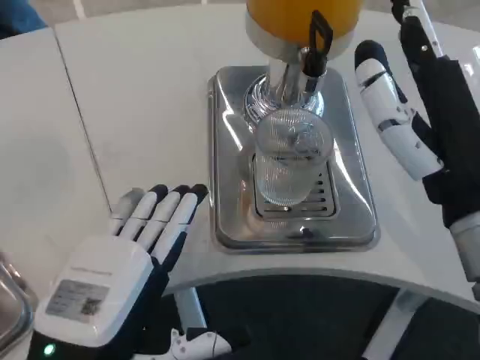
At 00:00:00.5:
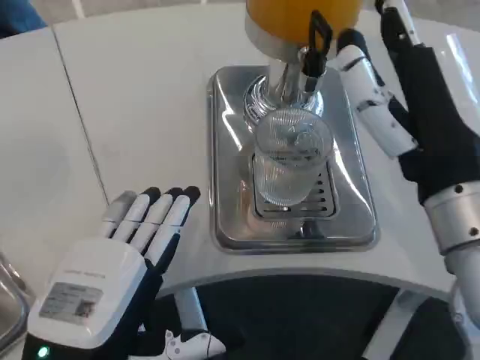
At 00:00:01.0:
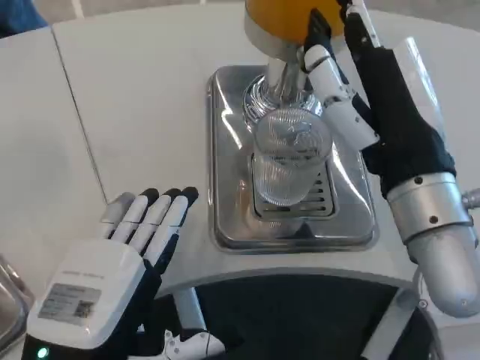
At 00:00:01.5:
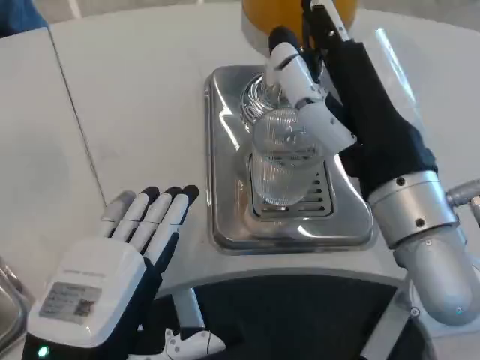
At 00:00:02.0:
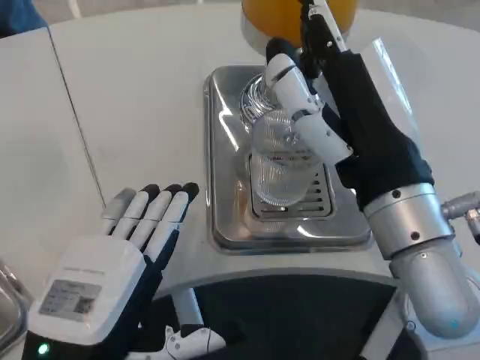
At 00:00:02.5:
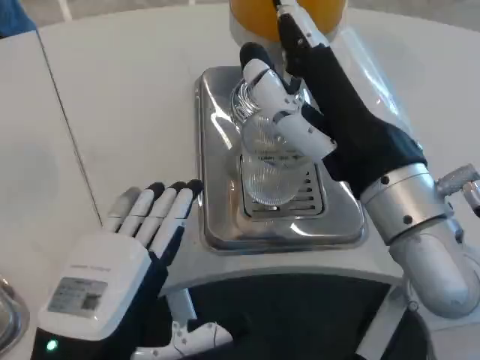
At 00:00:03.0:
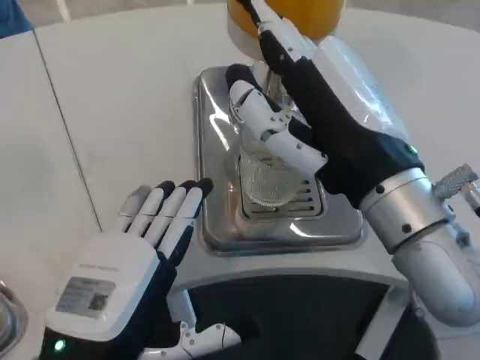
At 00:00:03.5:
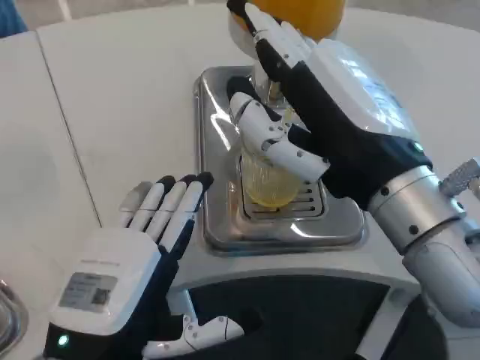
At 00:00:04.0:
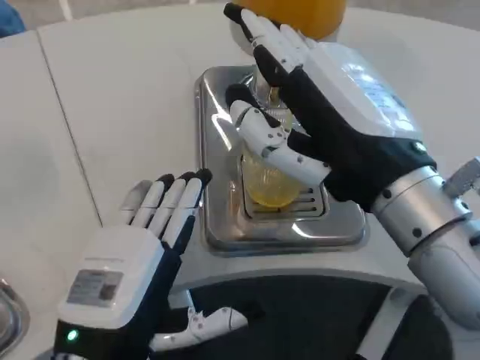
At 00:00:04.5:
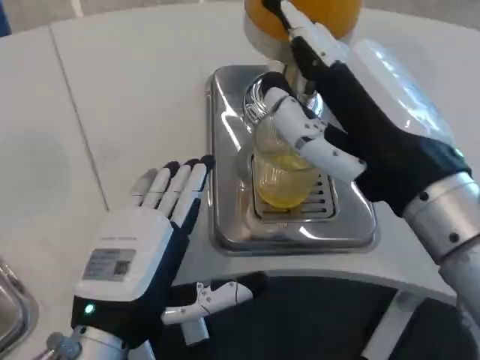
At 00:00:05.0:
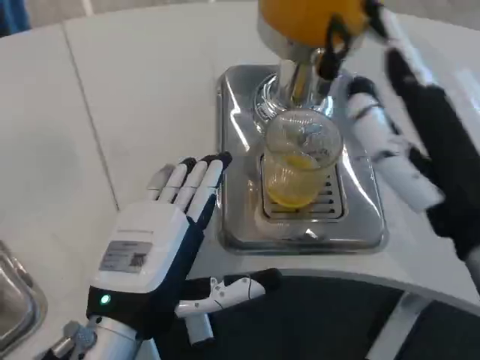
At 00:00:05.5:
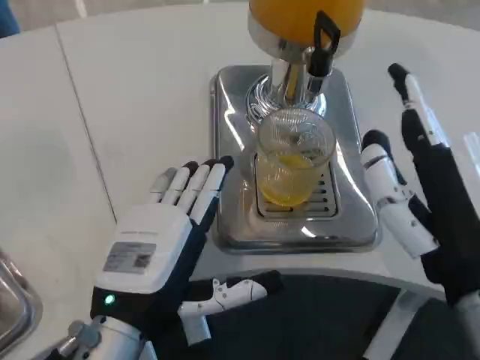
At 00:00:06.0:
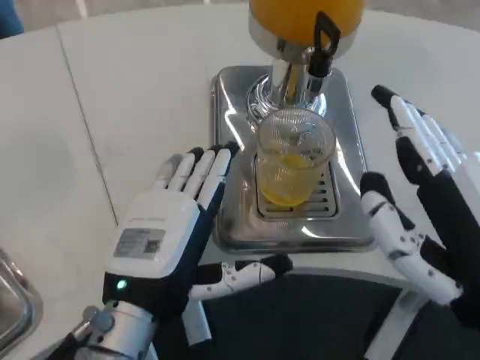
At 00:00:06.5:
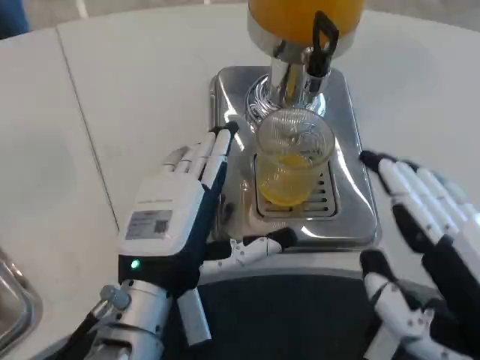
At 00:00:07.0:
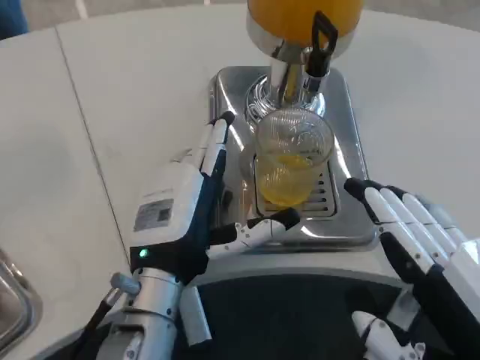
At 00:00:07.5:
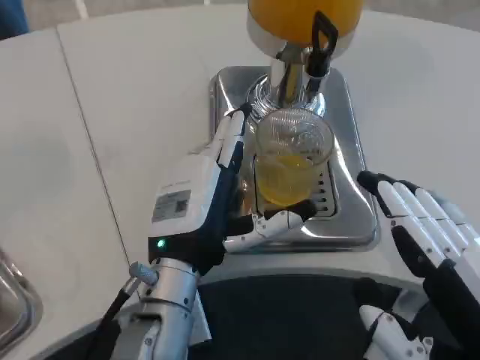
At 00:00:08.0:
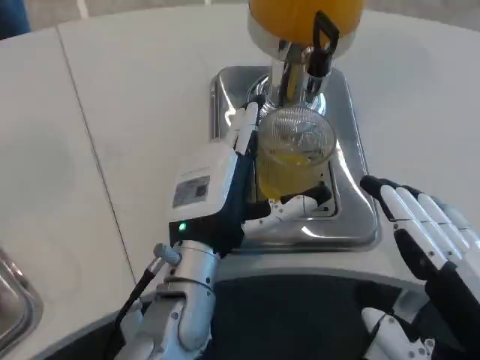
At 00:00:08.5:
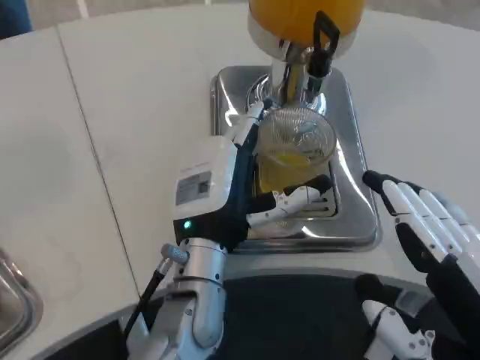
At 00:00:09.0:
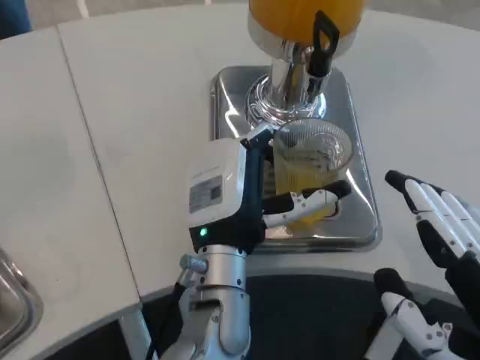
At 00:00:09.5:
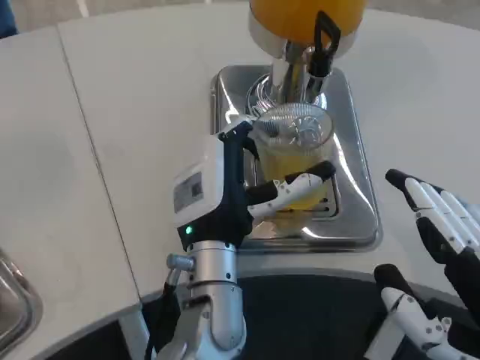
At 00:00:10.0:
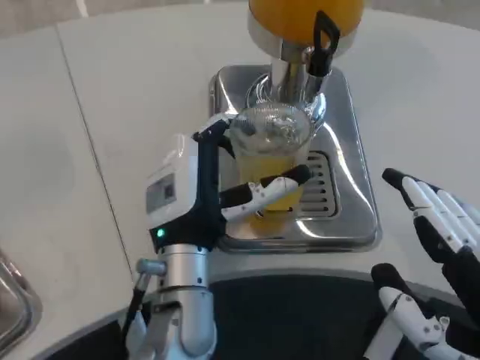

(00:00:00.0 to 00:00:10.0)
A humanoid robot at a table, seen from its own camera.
Task of the whole recording: Grasp the cup under the faucet to collect the drink, then remove the cup.
00:00:00.0 - 00:00:02.0: The right hand ends up some 5 cm from where it was.
00:00:04.0 - 00:00:06.0: The right hand is displaced backward, downward and to the right by approximately 10 cm, while the left hand heads forward, covering about 5 cm.
00:00:06.0 - 00:00:08.0: The left hand shifts roughly 10 cm forward and to the right.
00:00:08.0 - 00:00:10.0: There are only small adjustments of the hands.

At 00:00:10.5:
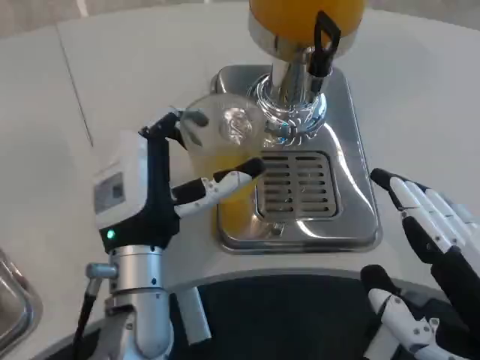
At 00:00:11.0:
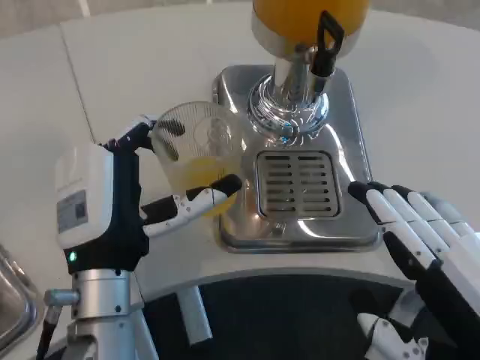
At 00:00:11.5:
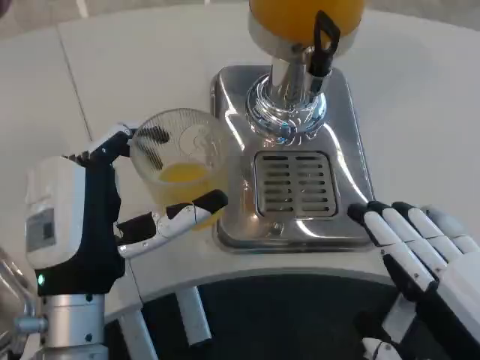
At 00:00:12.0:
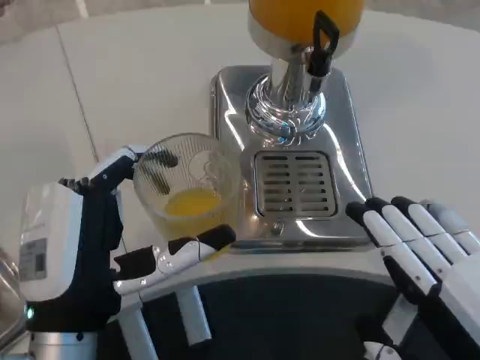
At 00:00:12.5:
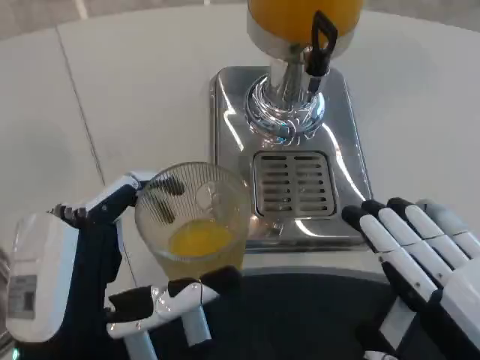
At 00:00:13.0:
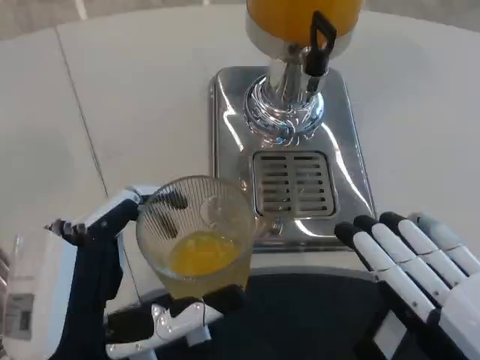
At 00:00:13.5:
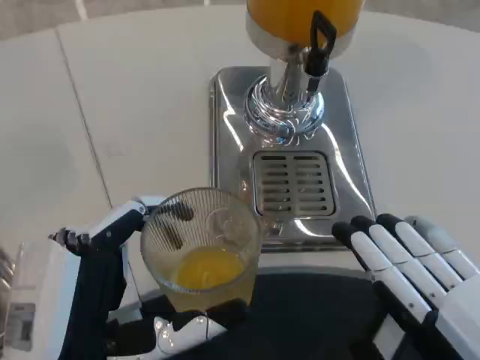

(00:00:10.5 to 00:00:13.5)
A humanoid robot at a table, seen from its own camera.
Task of the whole recording: Grasp the cup under the faucet to collect the drink, then remove the cup.
00:00:10.5 - 00:00:12.0: The left hand shifts approximately 10 cm backward.
00:00:12.0 - 00:00:13.5: The left hand travels backward by about 5 cm.

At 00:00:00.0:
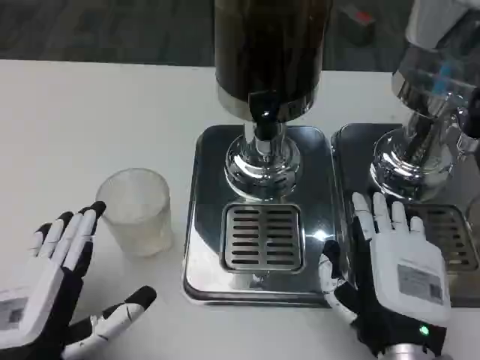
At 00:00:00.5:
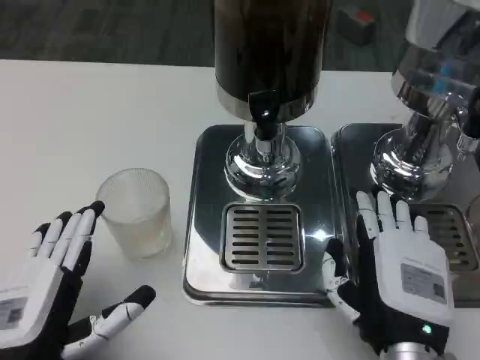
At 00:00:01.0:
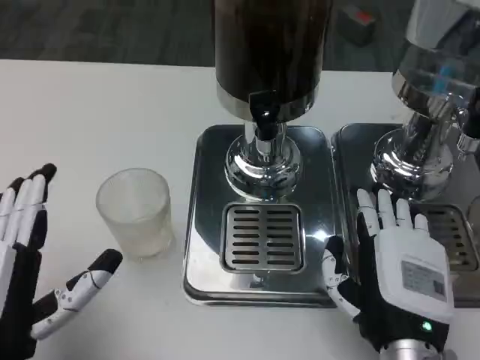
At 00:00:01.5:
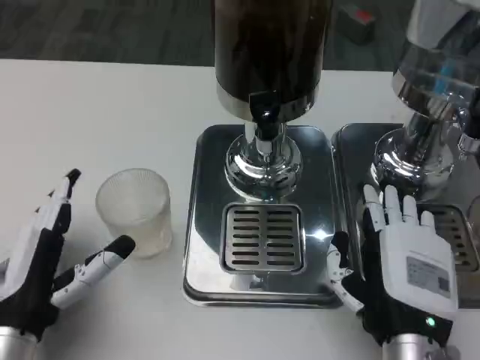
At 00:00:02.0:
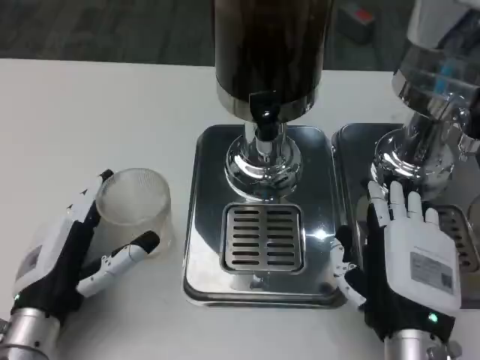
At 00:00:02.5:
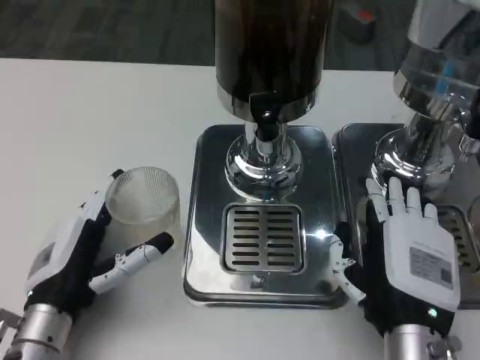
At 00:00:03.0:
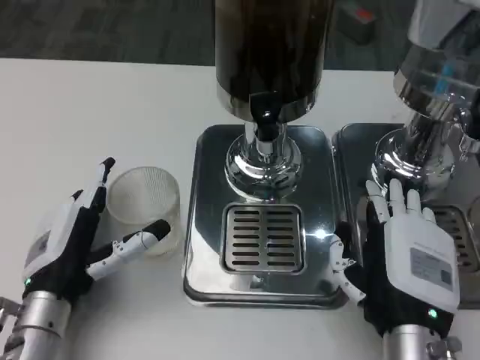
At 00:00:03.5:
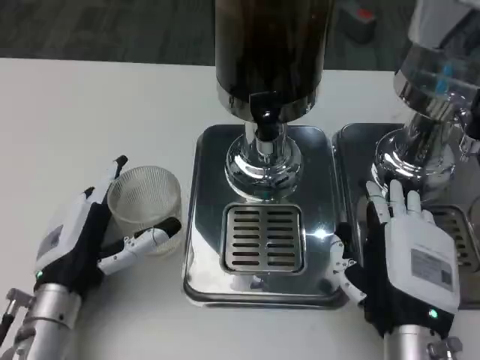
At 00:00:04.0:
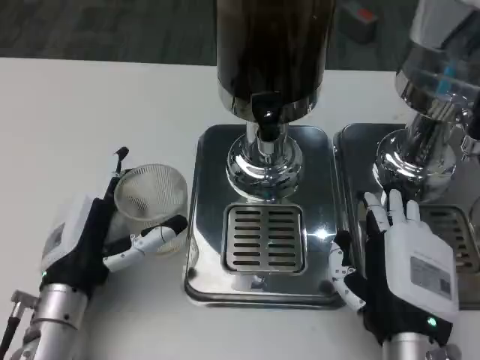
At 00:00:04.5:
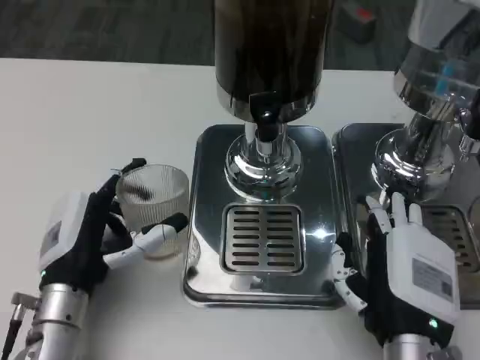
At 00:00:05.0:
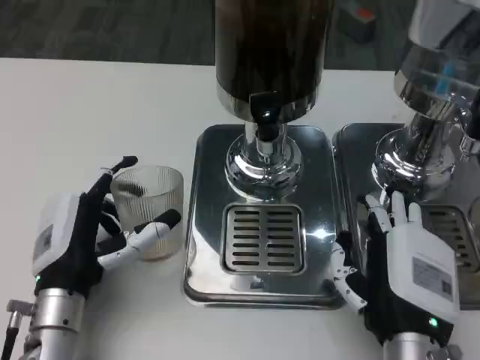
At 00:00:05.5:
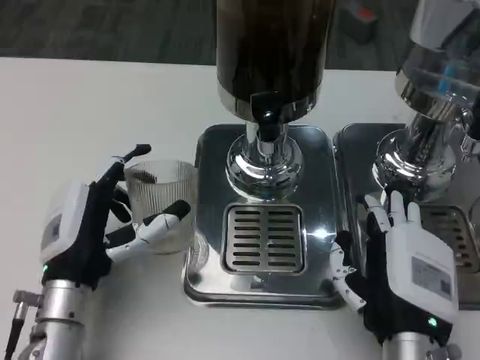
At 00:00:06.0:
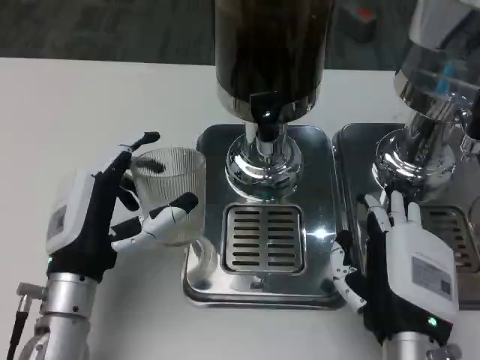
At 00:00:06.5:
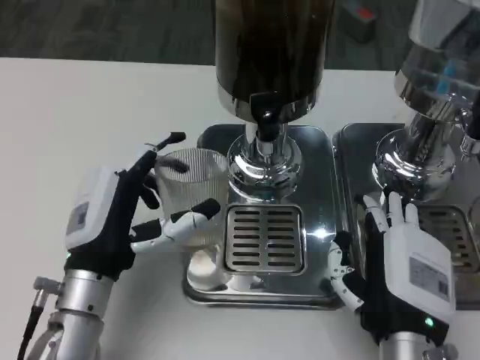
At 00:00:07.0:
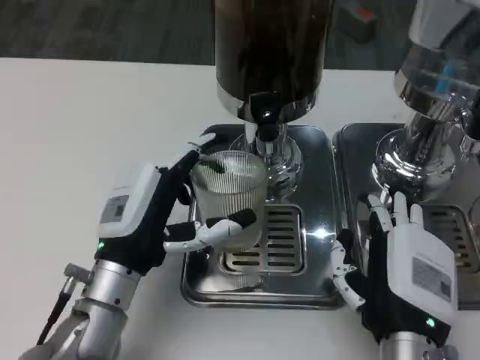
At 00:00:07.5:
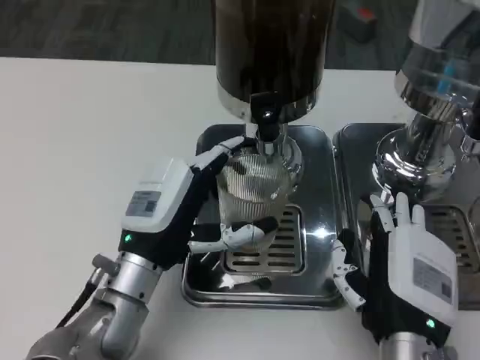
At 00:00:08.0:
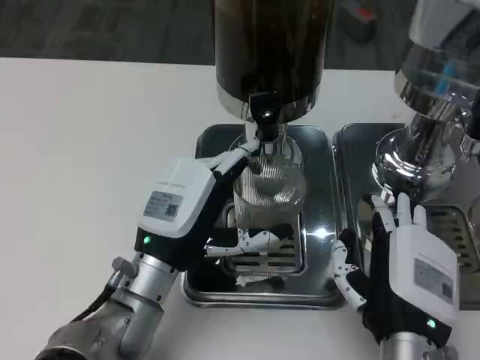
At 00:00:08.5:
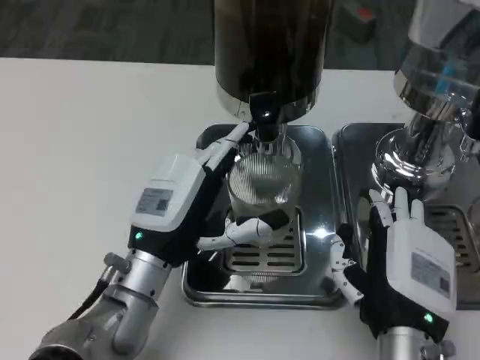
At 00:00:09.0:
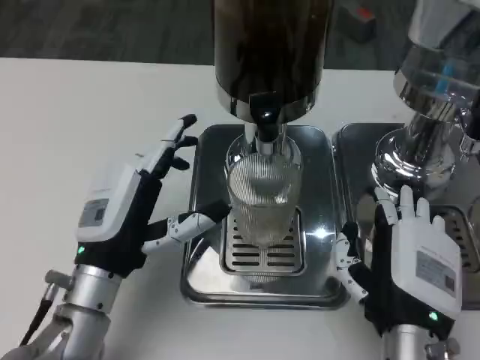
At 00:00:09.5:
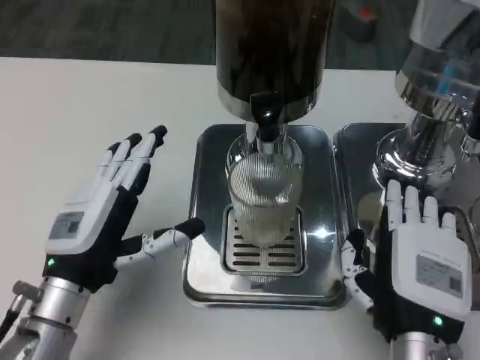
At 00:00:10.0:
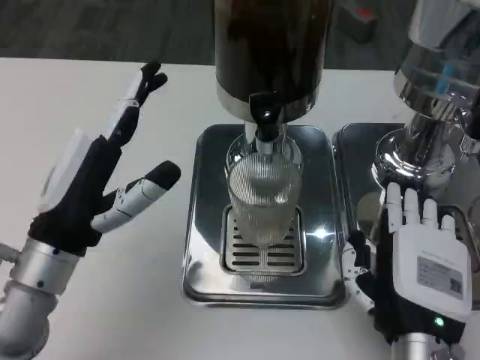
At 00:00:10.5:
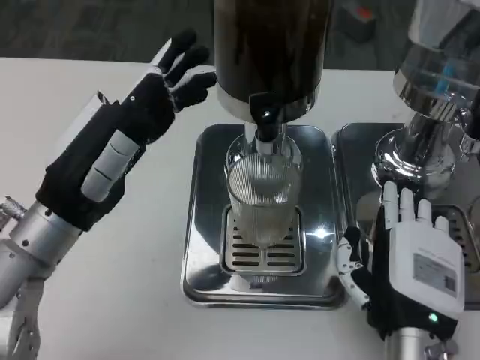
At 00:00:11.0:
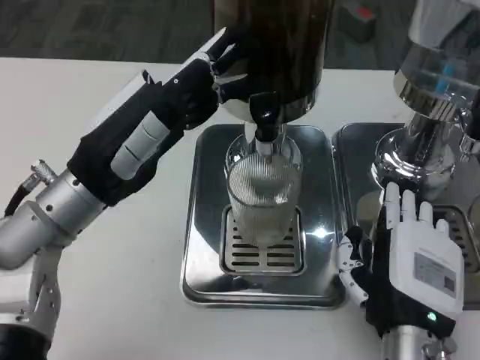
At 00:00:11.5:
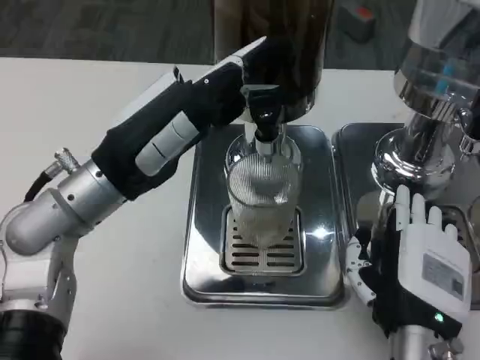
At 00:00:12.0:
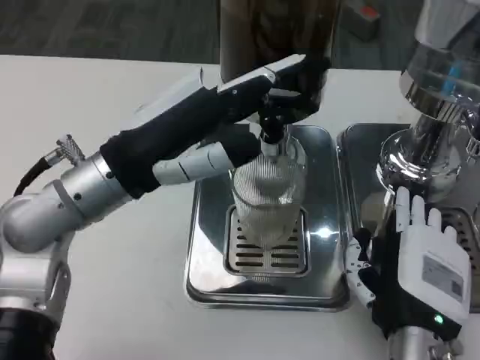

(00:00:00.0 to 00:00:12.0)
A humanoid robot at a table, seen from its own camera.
Task of the whole recording: Grasp the cup under the faucet to collect the drink, then remove the cup.
00:00:00.0 - 00:00:02.0: The left hand shifts approximately 10 cm forward.
00:00:02.0 - 00:00:06.0: The hands move only a little.
00:00:06.0 - 00:00:08.0: The left hand shifts some 5 cm to the right.
00:00:08.0 - 00:00:10.0: The left hand travels to the left and upward by about 10 cm.
00:00:10.0 - 00:00:12.0: The left hand is displaced upward and forward by about 10 cm.
